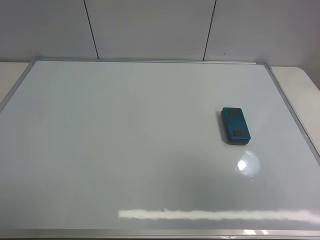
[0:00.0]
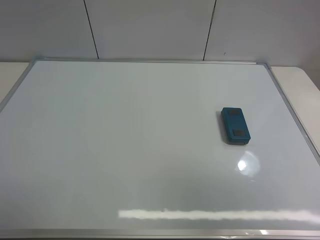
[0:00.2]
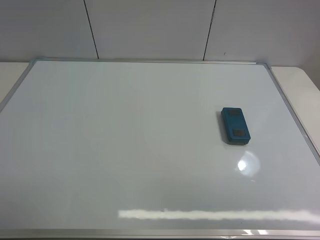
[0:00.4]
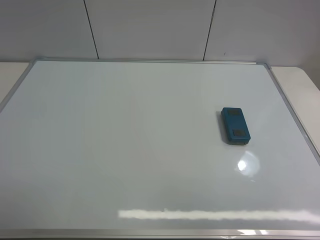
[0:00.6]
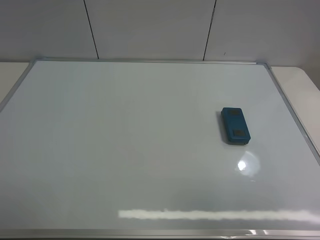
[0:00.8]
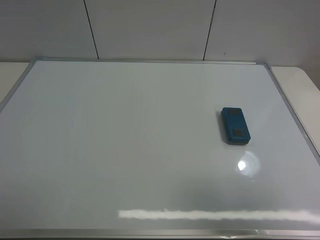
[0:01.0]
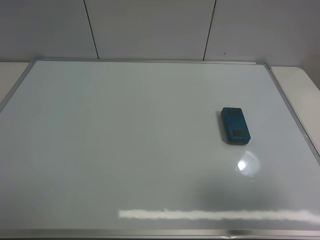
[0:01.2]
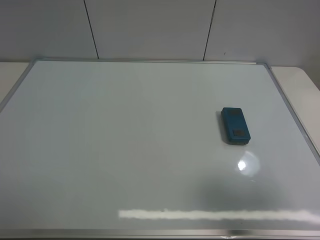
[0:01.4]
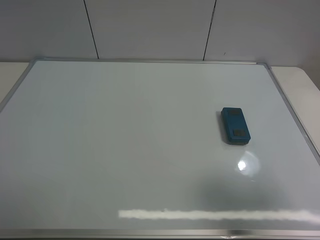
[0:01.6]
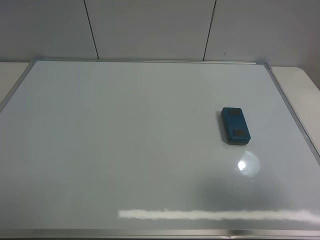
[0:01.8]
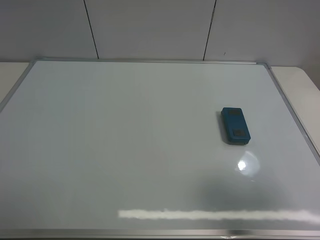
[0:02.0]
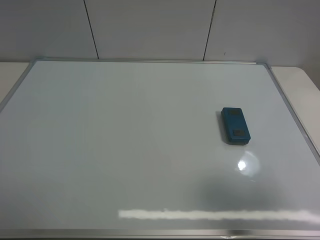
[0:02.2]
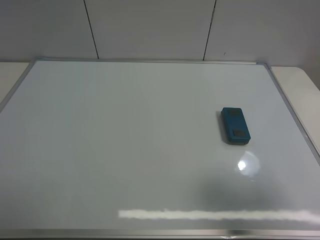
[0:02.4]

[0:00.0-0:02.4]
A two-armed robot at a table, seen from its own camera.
Task of the whole recording: use the right gripper to pick up the board eraser, wipe the notes on the whiteboard clean, and then put them back in place.
0:00.0 to 0:01.2: The right gripper goes about 15 cm downward.
0:01.2 to 0:02.4: Both grippers stay about where they are.
